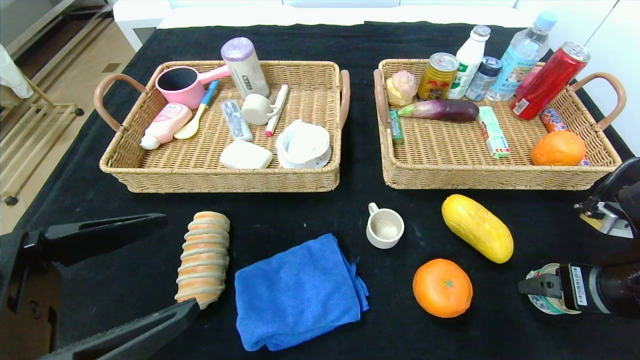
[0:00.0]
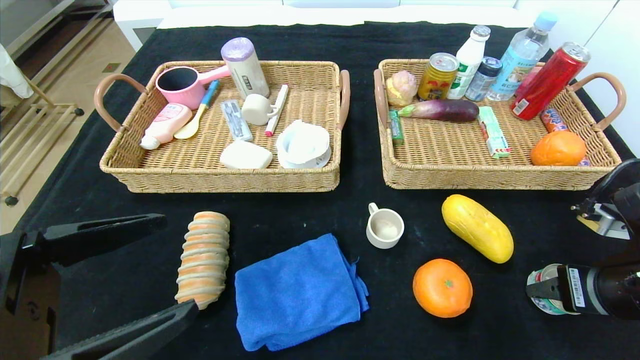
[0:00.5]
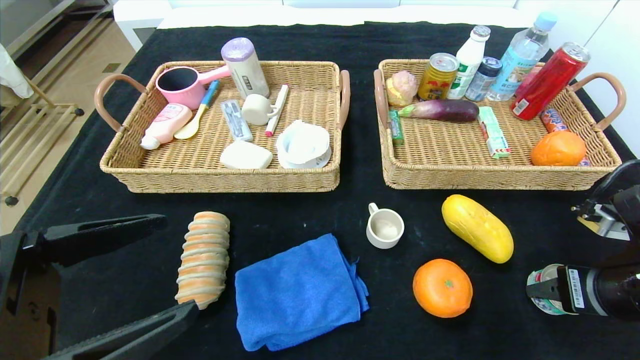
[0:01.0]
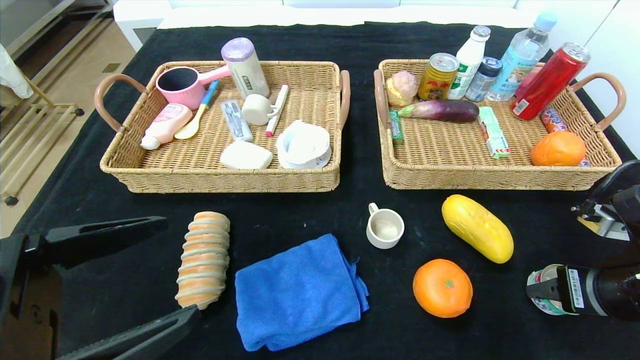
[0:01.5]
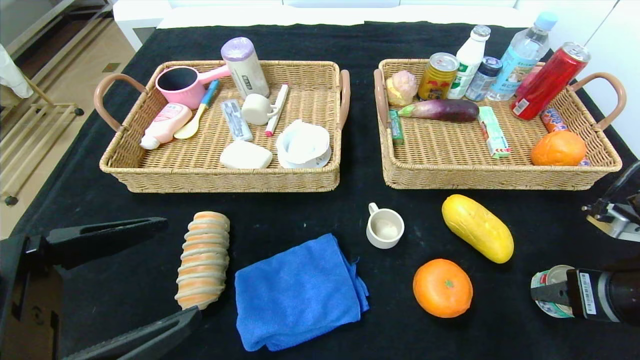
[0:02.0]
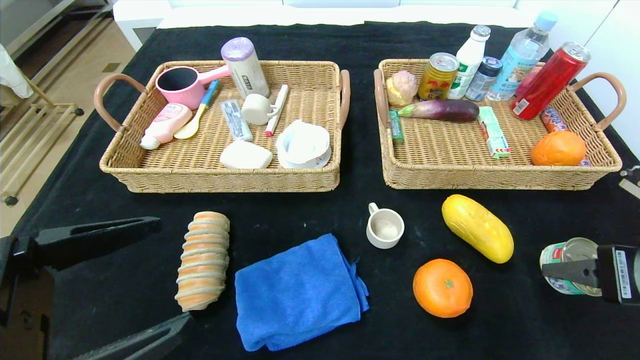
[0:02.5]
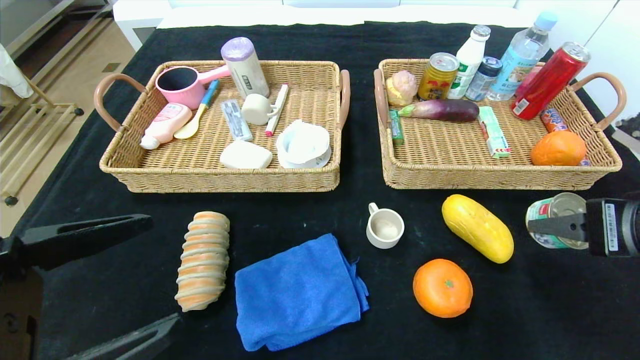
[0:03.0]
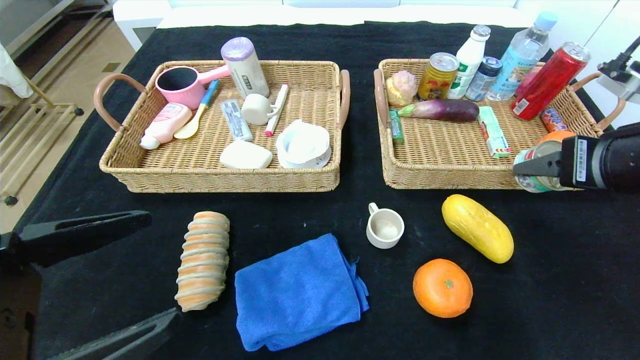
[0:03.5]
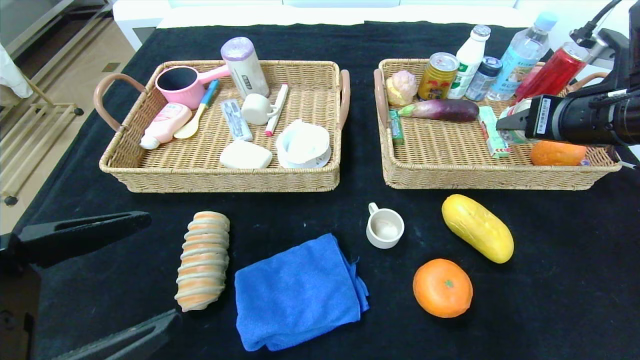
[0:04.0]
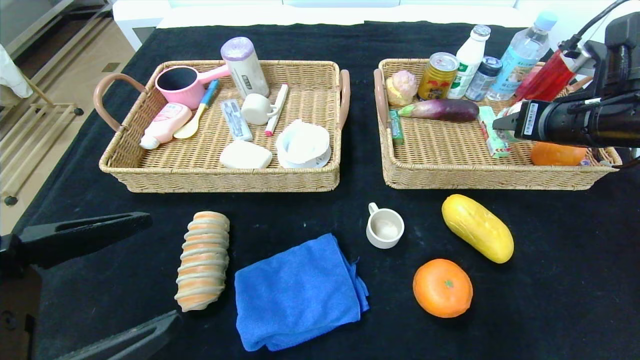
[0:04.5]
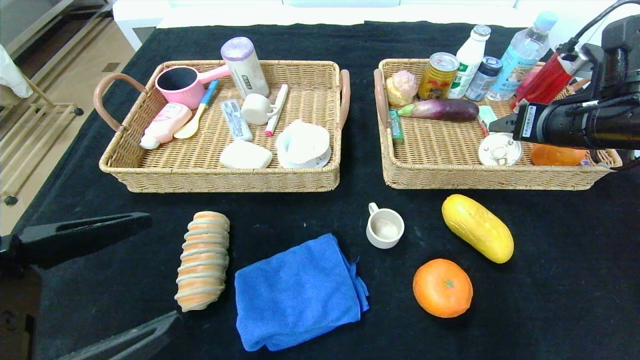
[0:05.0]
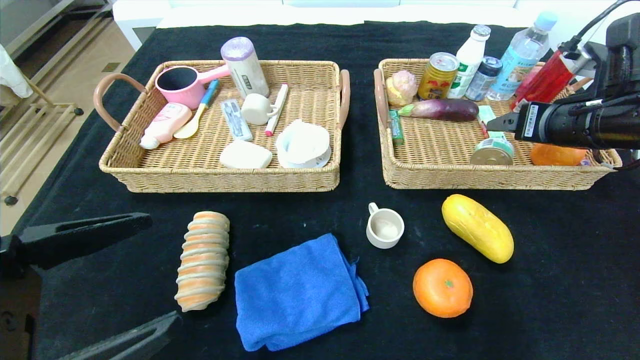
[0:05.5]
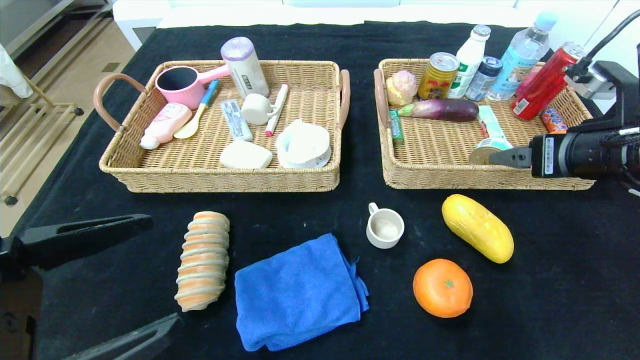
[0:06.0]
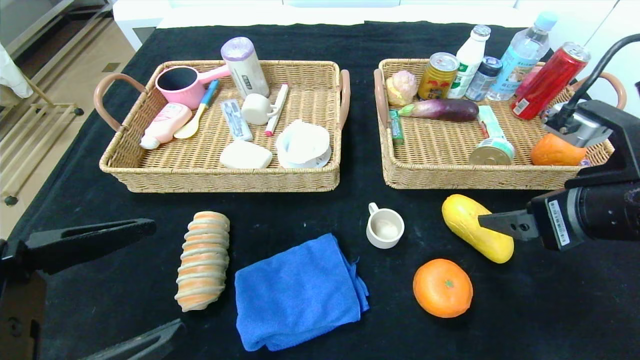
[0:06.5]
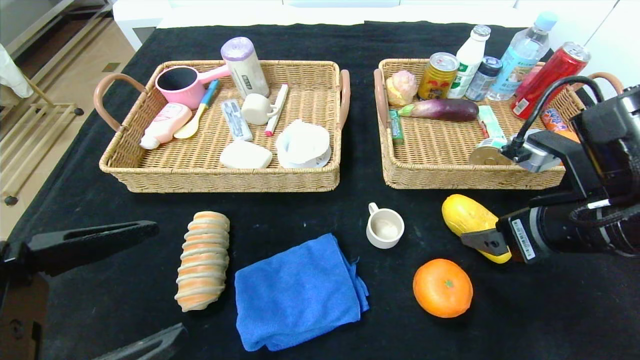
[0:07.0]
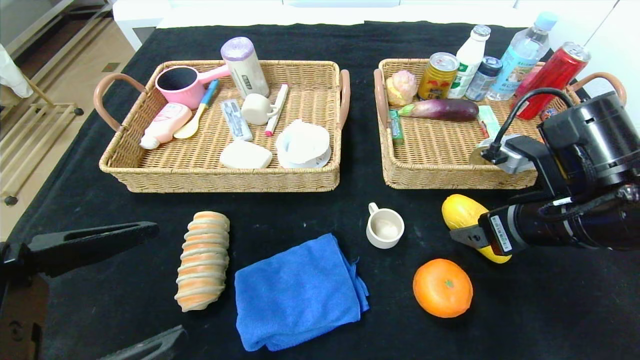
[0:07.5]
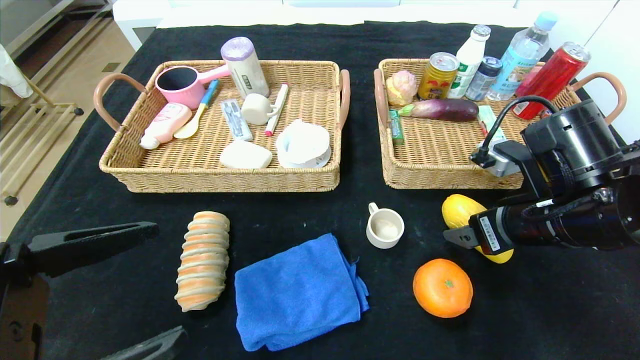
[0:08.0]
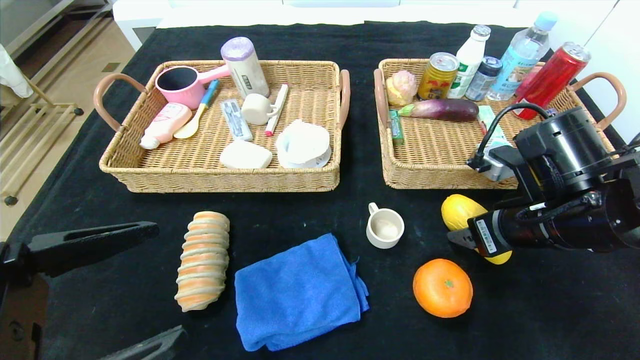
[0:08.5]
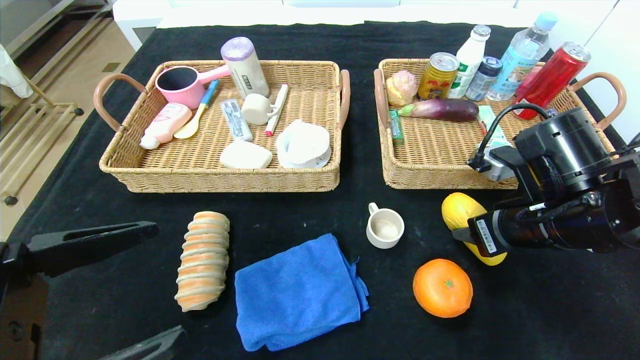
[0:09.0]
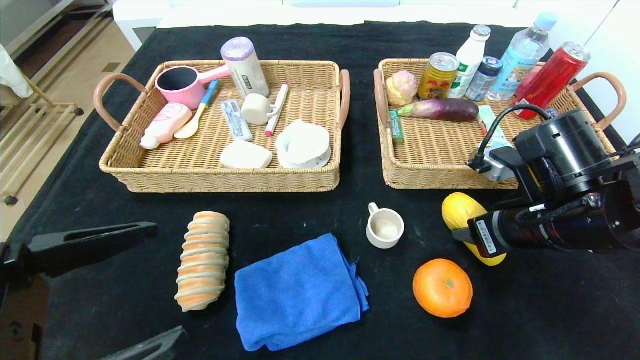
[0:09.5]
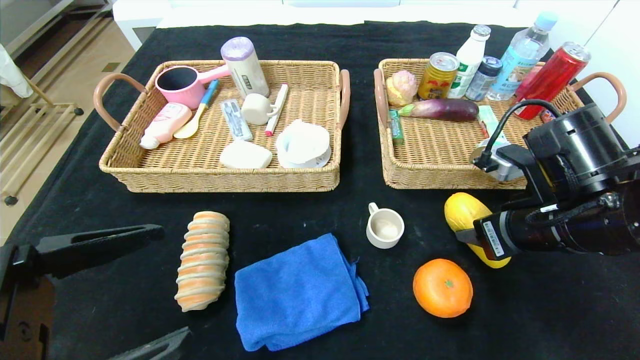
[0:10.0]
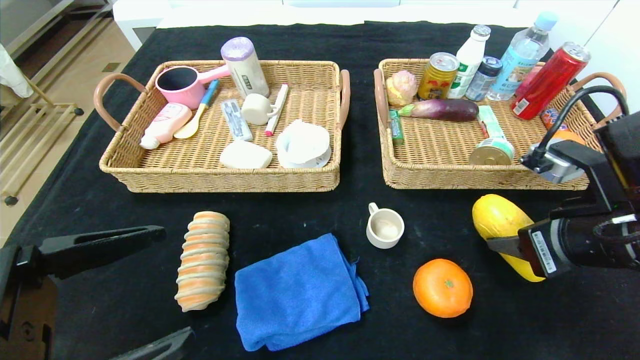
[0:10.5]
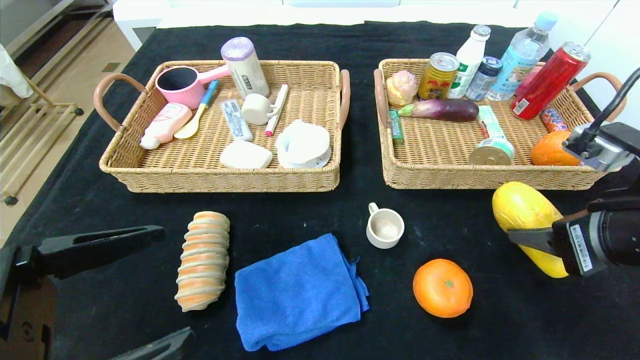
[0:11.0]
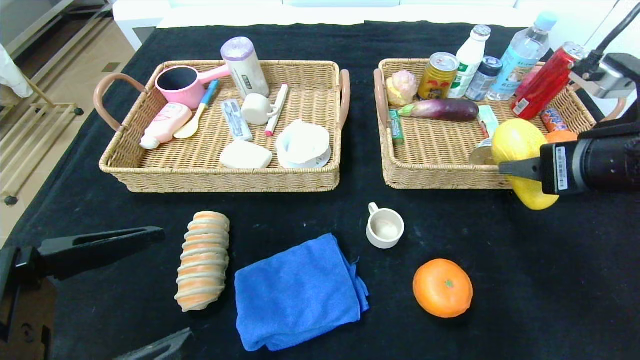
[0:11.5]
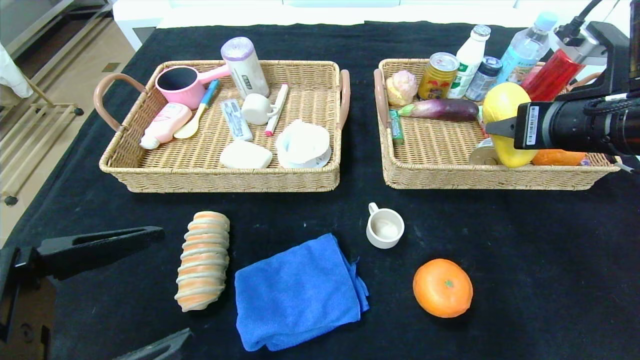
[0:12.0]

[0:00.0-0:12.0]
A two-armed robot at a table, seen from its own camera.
Step, 0:00.0 to 0:06.0: Pick up the can and put it in the right basket.
0:00.0 to 0:02.0: The right gripper closes.
0:02.0 to 0:04.0: The right gripper travels upward and forward by approximately 15 cm.
0:04.0 to 0:06.0: The right gripper opens its fingers.
0:06.0 to 0:08.0: The right gripper goes some 10 cm downward and to the left.
0:08.0 to 0:10.0: The right gripper closes up.
0:10.0 to 0:12.0: The right gripper shifts approximately 10 cm upward, and moves some 5 cm backward and comes back.

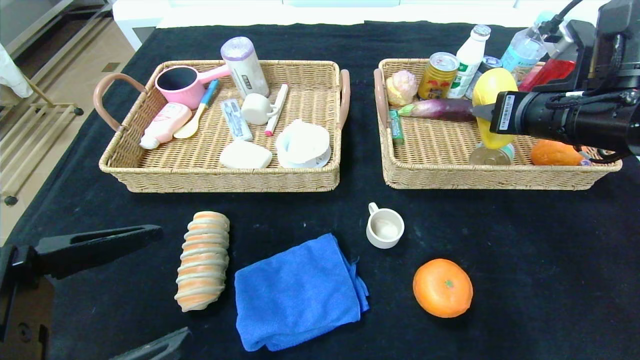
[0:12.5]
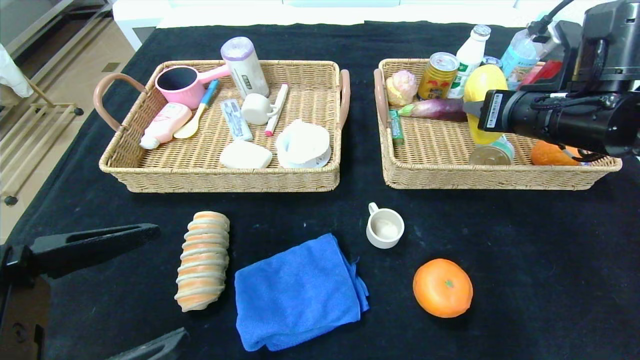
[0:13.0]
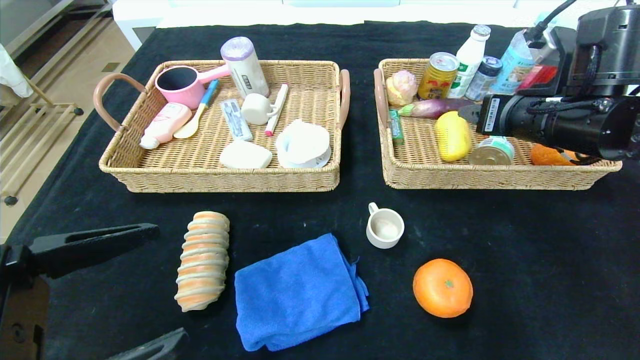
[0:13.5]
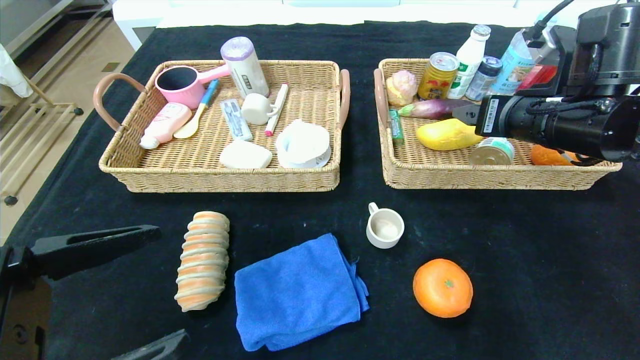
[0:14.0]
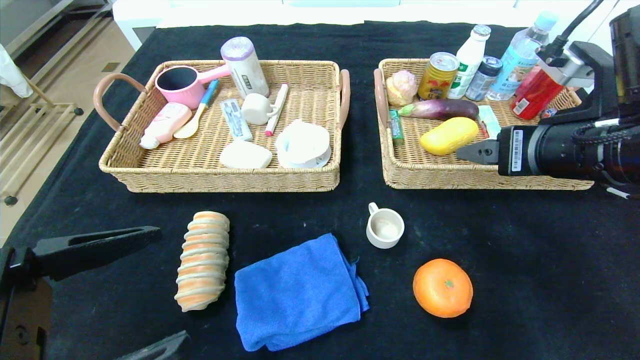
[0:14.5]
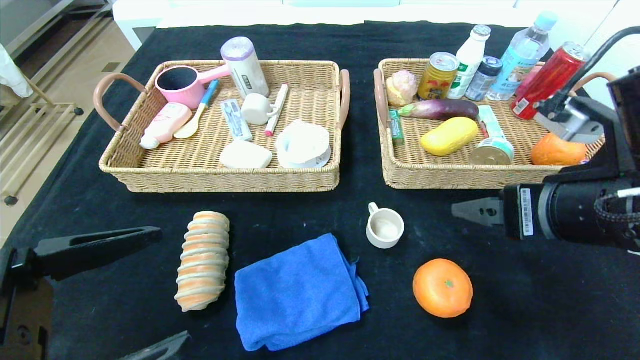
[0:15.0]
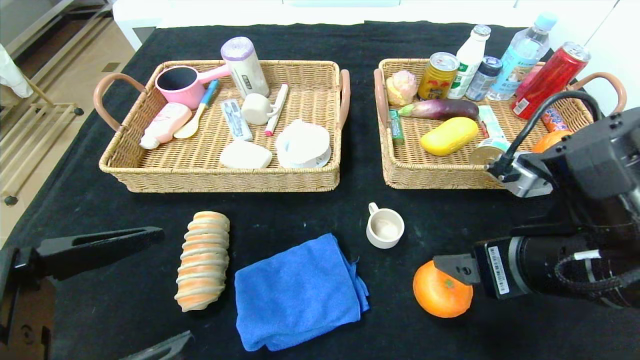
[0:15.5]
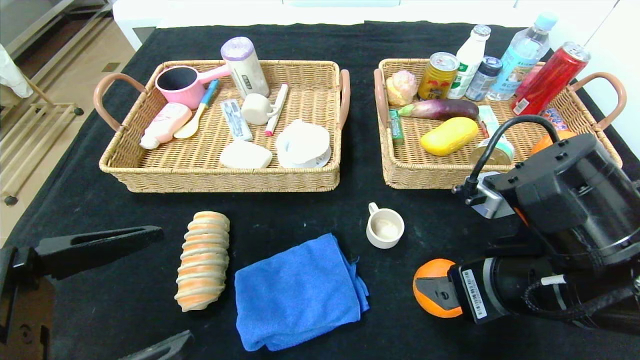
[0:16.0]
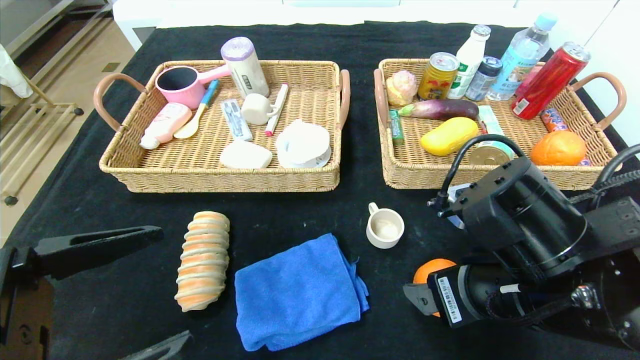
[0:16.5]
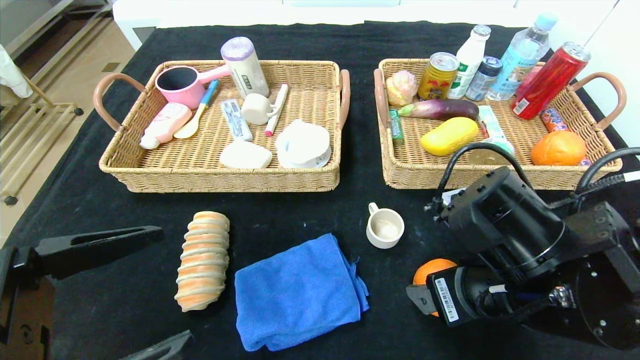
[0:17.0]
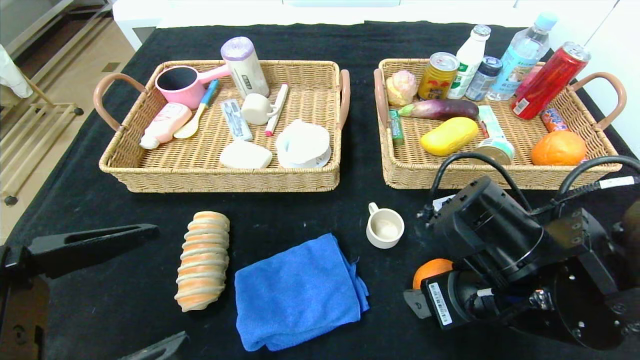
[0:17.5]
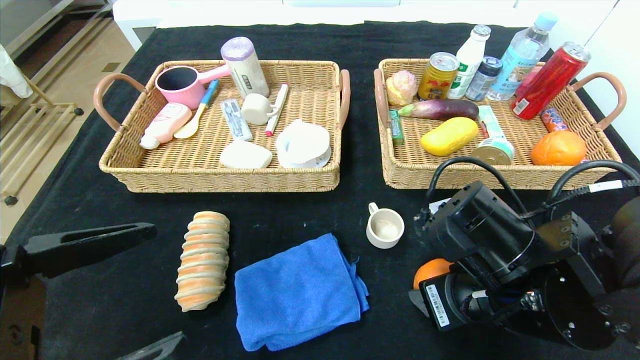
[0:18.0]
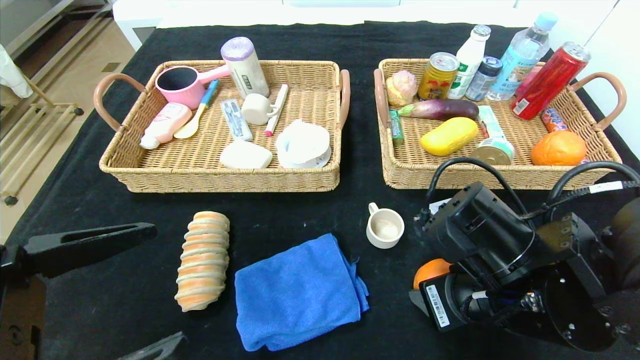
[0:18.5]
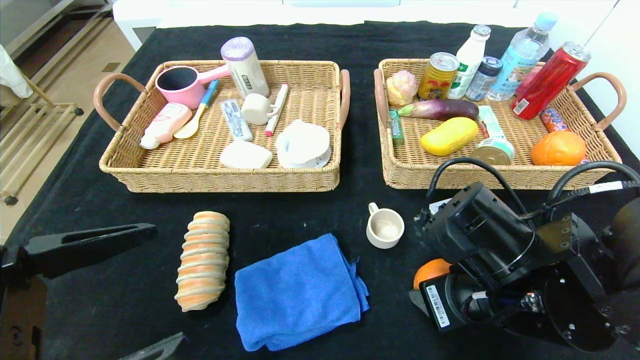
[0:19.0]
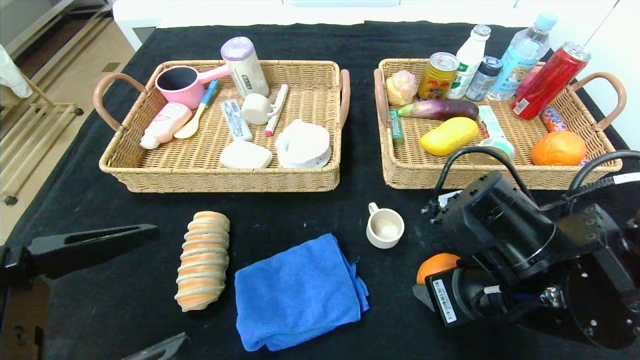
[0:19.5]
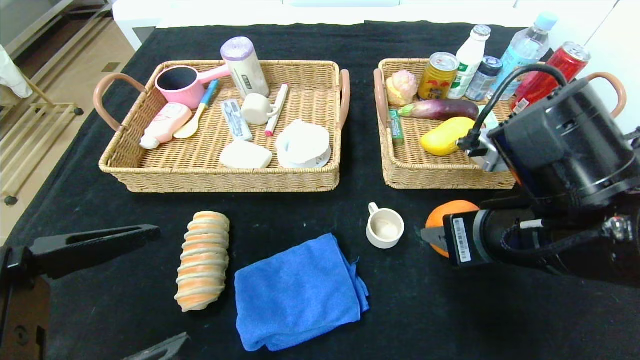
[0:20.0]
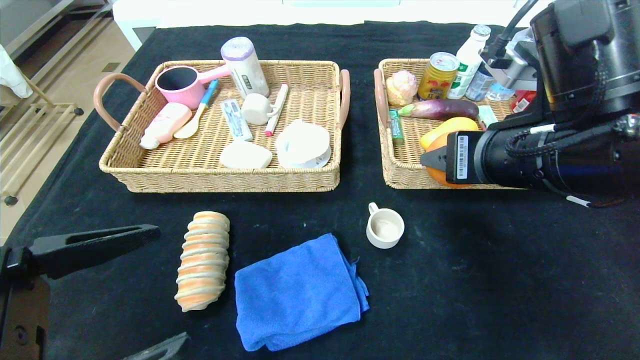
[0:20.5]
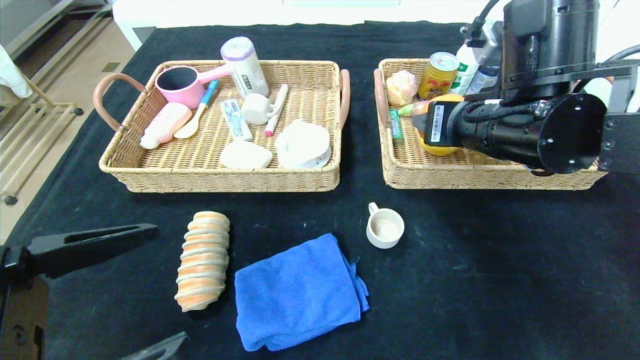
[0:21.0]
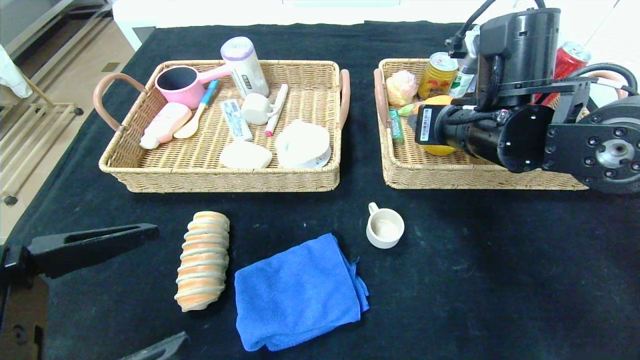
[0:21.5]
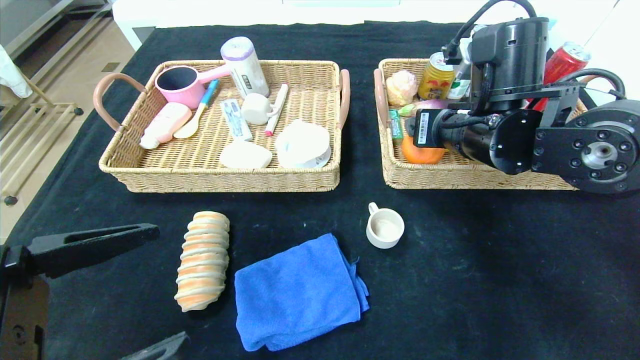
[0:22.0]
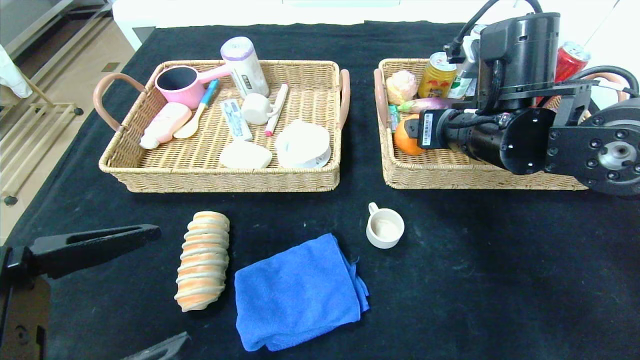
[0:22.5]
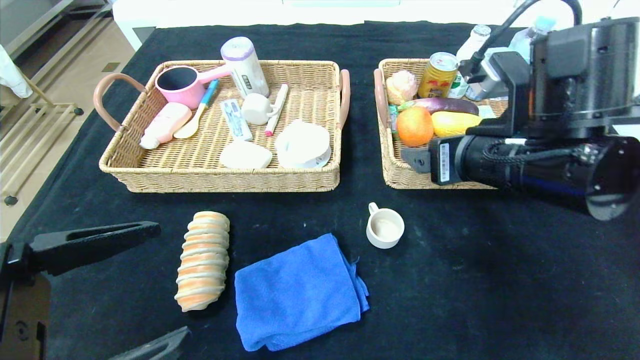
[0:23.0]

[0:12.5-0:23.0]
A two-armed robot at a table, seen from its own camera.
Step, 0:12.5 to 0:15.0: Pick up the mango and put it in the right basket.
0:12.5 to 0:14.5: The right gripper shifts some 5 cm backward, and opens.
0:14.5 to 0:16.5: The right gripper shifts about 10 cm downward and to the left.
0:16.5 to 0:19.0: The right gripper closes up.
0:19.0 to 0:21.0: The right gripper moves upward and forward, about 15 cm.
0:21.0 to 0:23.0: The right gripper moves roughly 5 cm.
